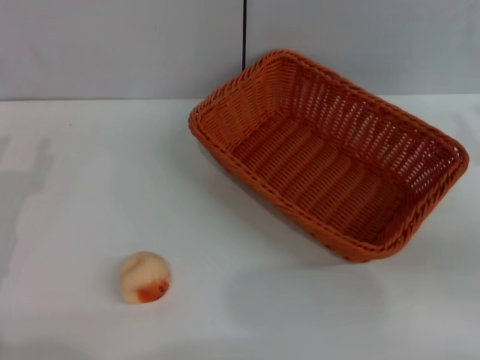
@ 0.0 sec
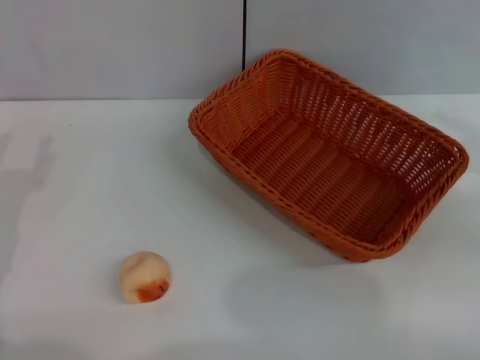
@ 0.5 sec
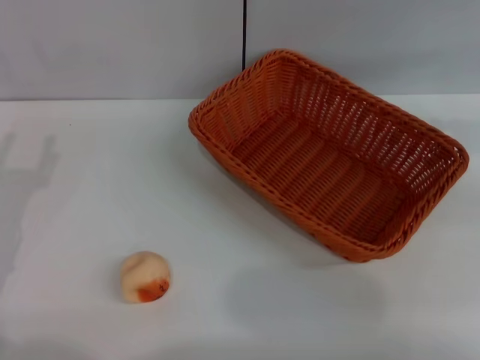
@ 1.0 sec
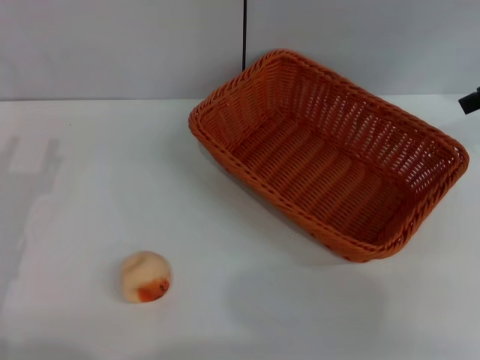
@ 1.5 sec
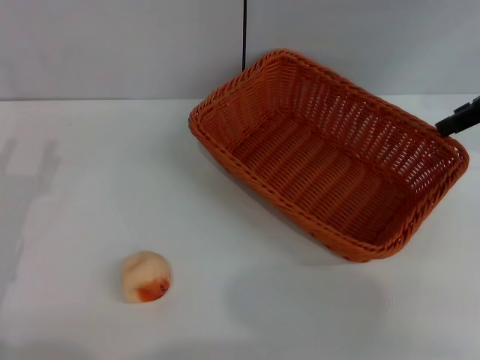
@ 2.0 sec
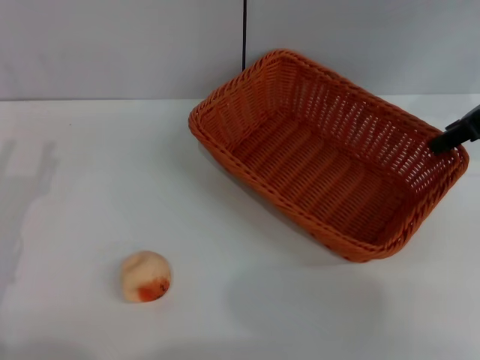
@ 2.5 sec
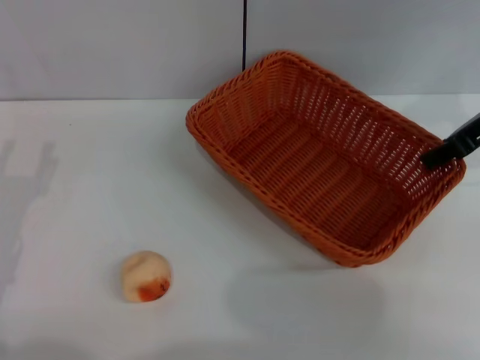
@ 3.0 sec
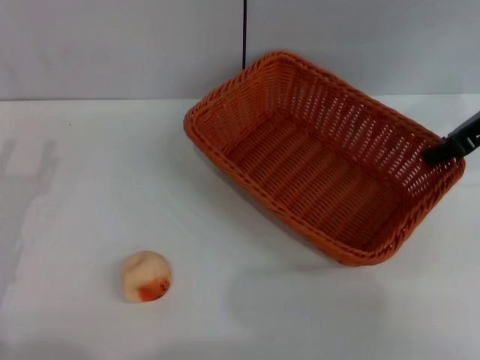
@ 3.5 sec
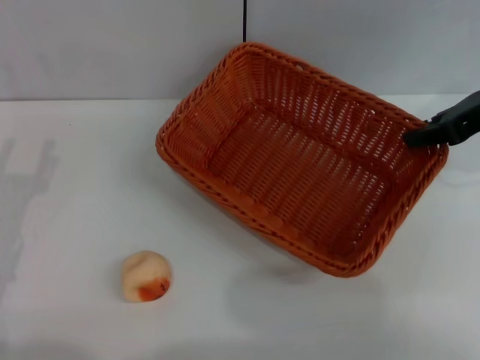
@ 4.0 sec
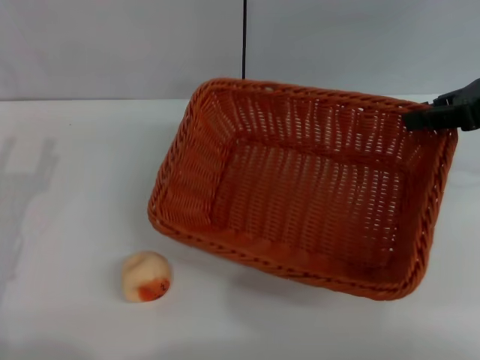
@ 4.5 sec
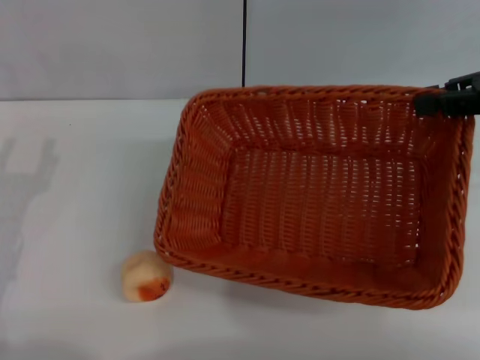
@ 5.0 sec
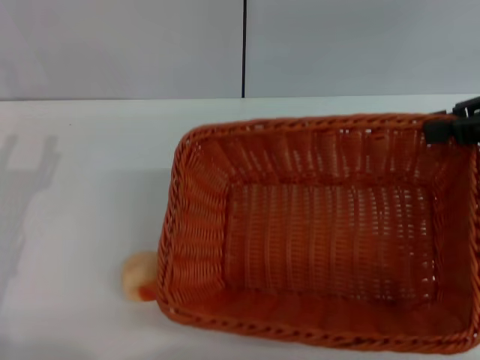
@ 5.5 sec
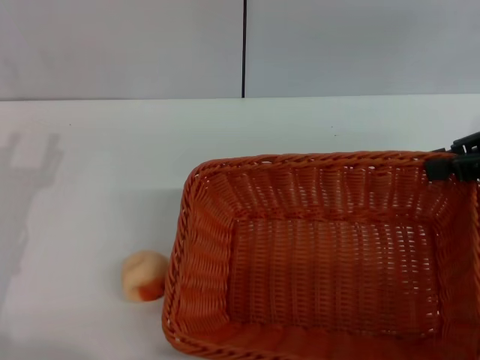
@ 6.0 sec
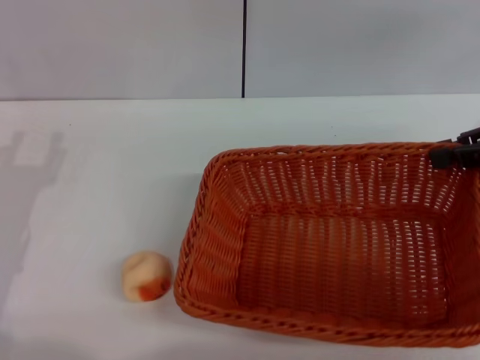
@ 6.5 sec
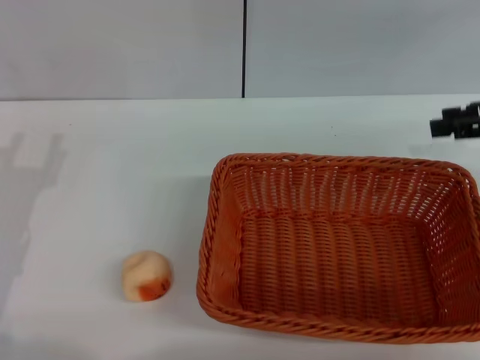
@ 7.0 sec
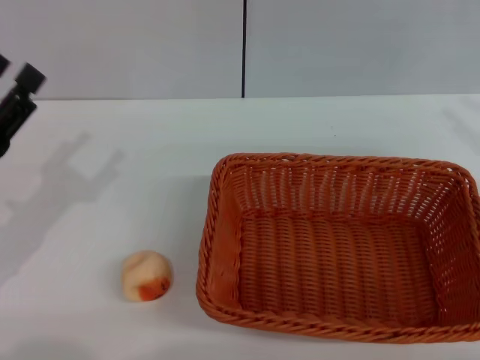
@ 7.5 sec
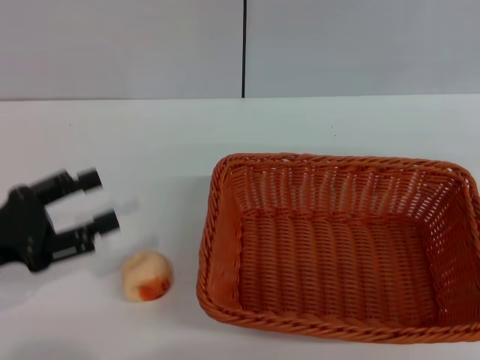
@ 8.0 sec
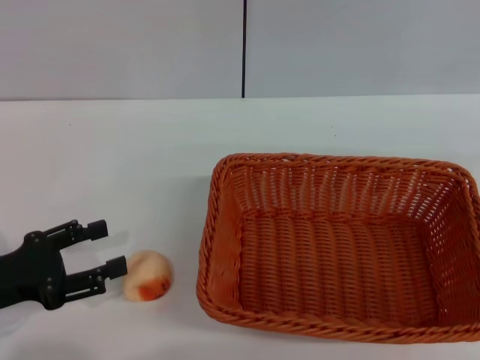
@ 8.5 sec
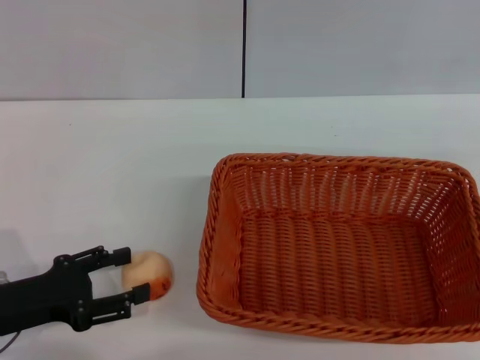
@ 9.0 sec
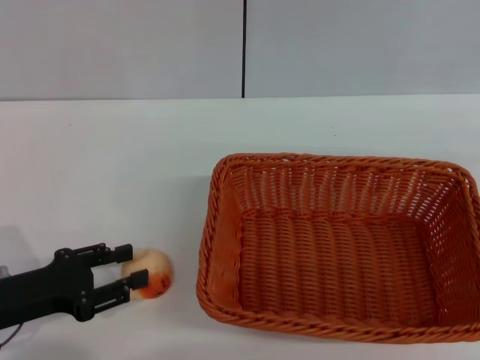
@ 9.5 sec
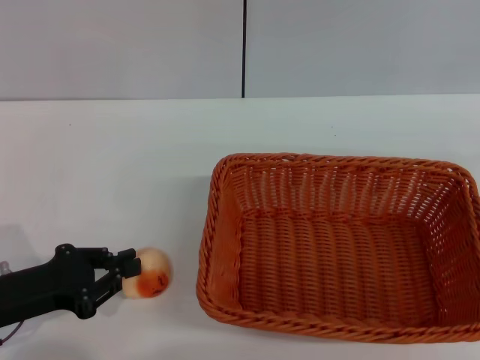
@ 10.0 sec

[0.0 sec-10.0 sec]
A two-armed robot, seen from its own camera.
Step, 0.0 sec to 6.5 sec: Move the basket to the center of view with the right gripper.
0.0 sec to 2.0 sec: The right gripper travels forward, upward and to the left by about 20 cm.
2.0 sec to 4.0 sec: The right gripper closes.
4.0 sec to 6.0 sec: The right gripper shifts by some 5 cm.
6.0 sec to 8.0 sec: The right gripper travels backward, to the right and downward by roughly 15 cm, and opens its fingers.
8.0 sec to 10.0 sec: The left gripper shifts by some 5 cm, and closes its fingers.

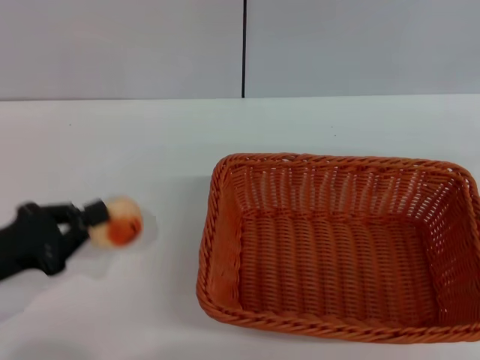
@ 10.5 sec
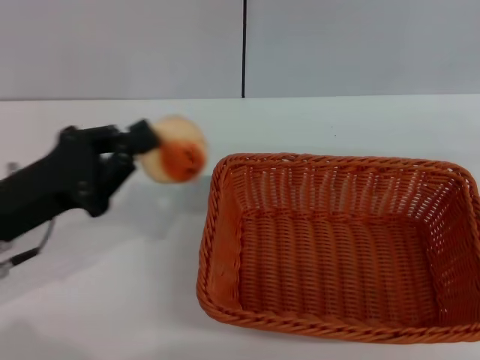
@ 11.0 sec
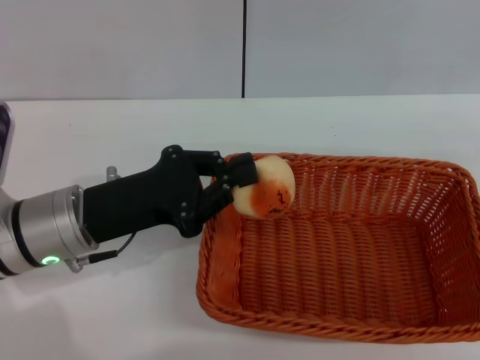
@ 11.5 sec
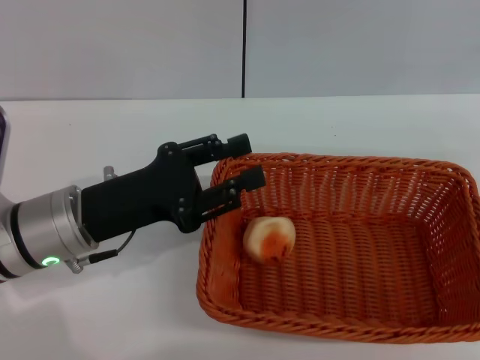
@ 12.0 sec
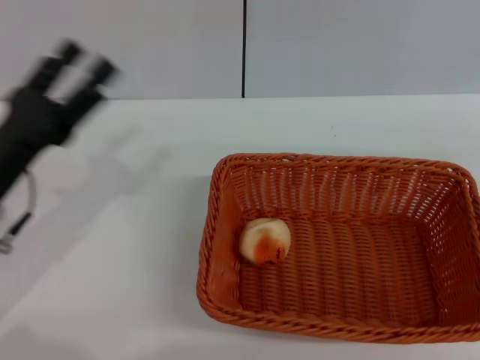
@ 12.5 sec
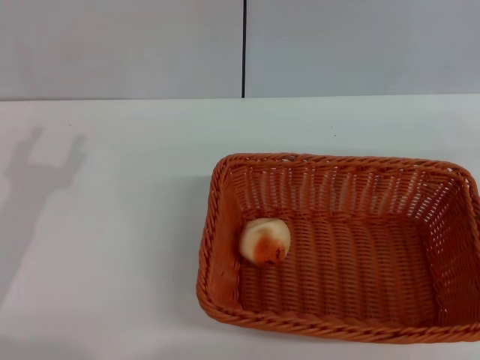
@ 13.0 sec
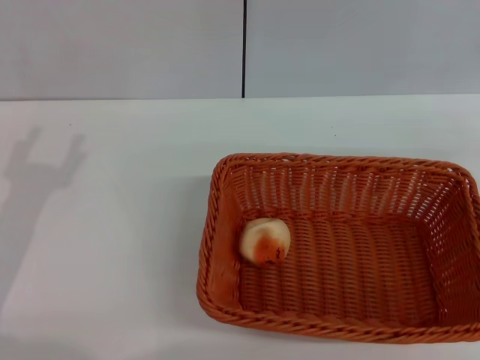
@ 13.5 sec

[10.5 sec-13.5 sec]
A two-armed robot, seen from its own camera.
Step, 11.0 sec to 11.5 sec: Place the egg yolk pastry into the basket with the left gripper.
10.5 sec to 12.0 sec: The left gripper goes some 15 cm to the right and forward, and opens.
12.0 sec to 13.5 sec: The left gripper heads to the left, covering some 10 cm, and opens its fingers.
